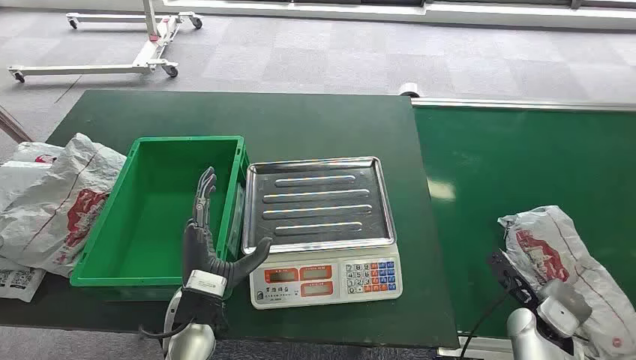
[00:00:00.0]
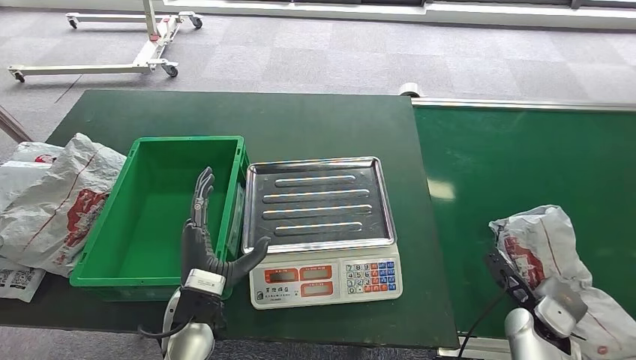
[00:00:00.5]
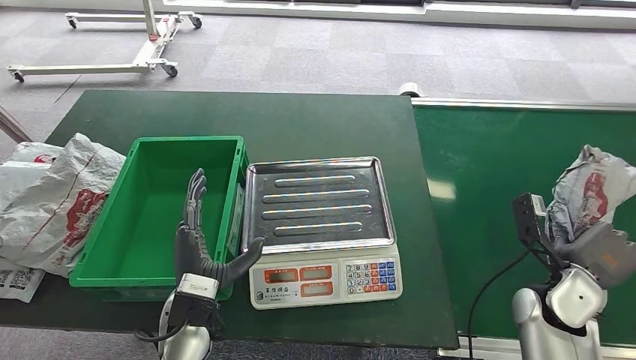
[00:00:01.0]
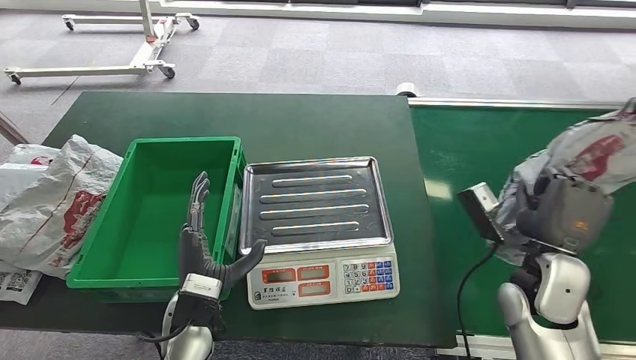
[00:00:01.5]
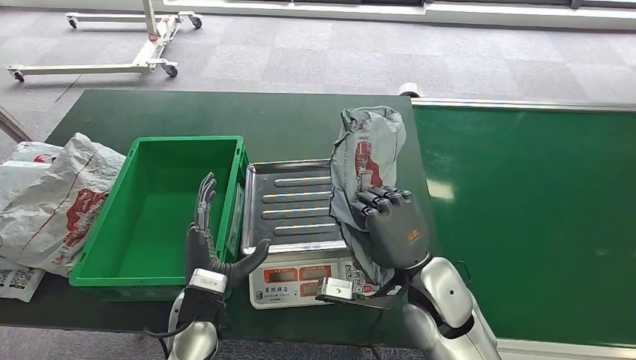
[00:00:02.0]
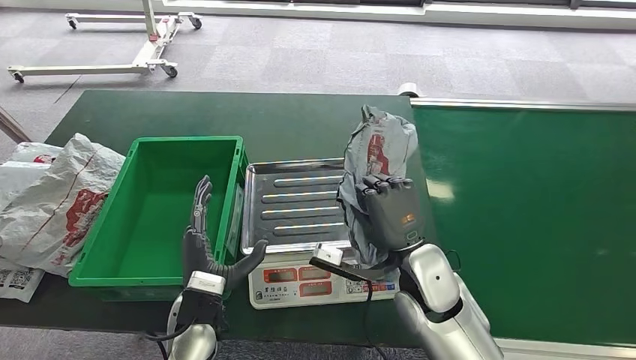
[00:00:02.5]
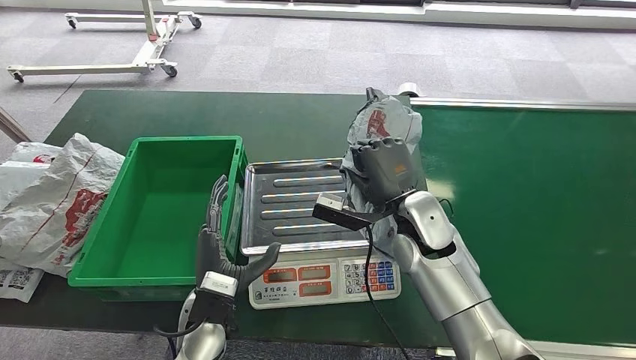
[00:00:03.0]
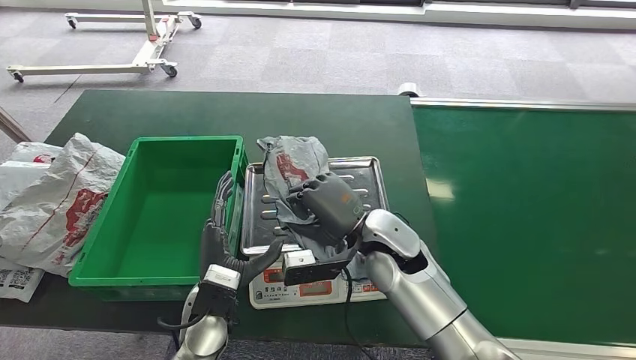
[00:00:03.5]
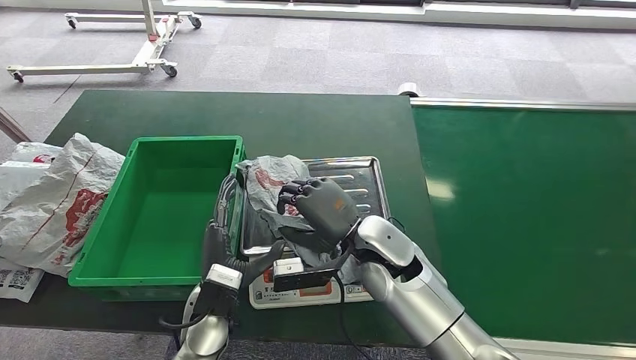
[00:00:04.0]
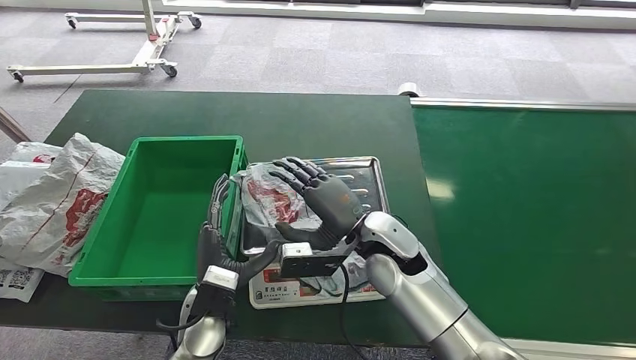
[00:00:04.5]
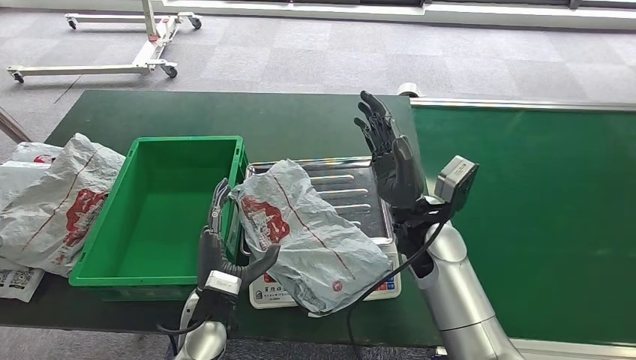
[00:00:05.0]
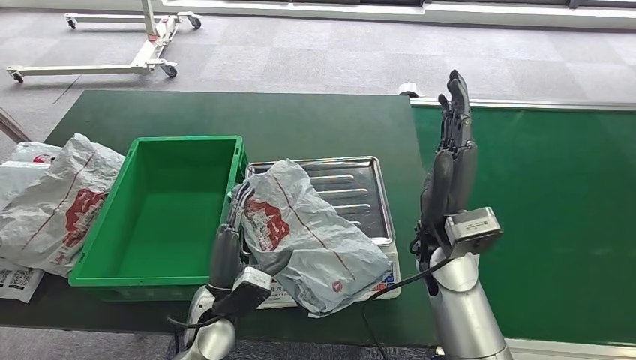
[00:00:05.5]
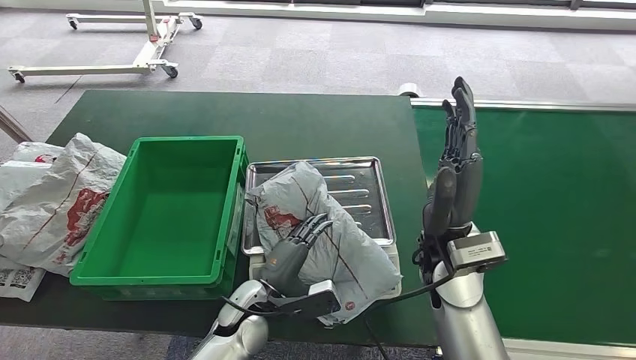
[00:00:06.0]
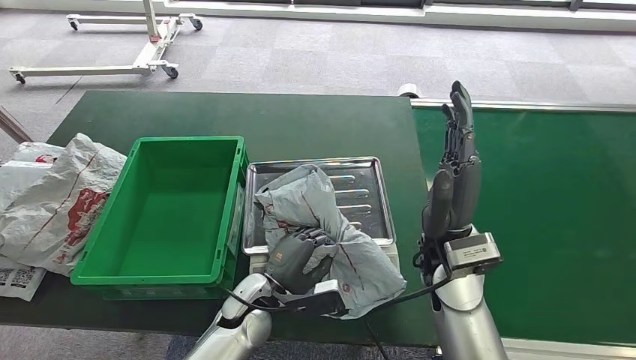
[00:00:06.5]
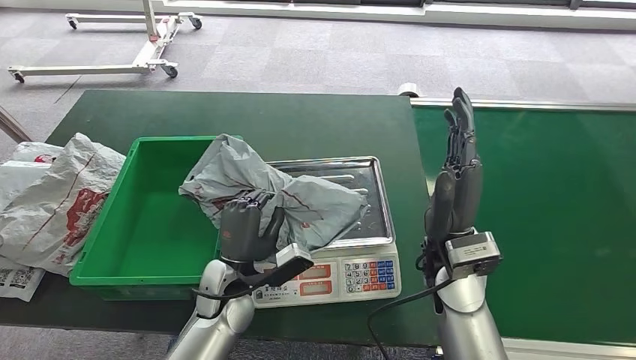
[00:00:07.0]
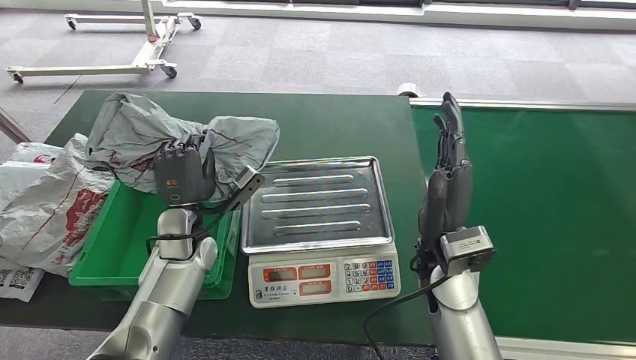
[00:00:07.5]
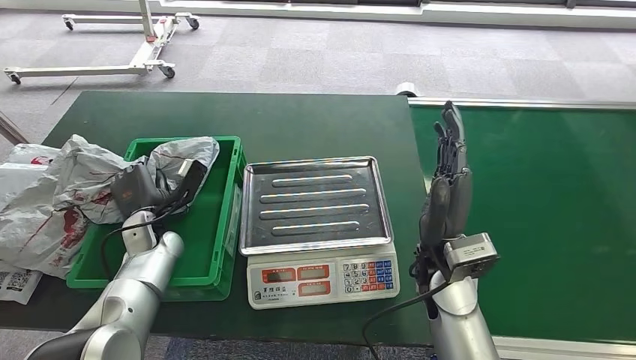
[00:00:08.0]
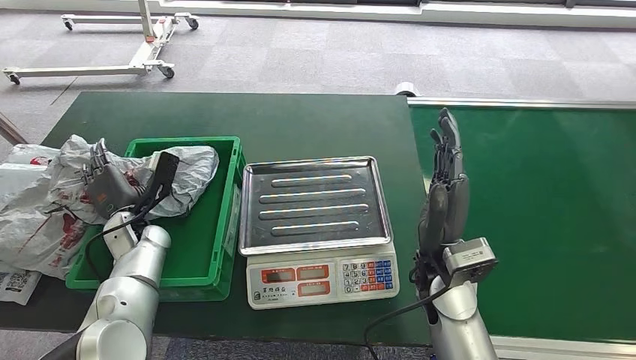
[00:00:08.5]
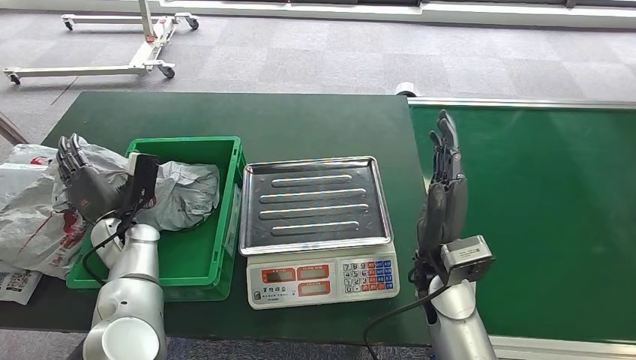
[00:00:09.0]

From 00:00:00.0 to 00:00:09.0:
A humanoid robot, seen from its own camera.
Step, from 00:00:00.0 to 00:00:01.0: Pick up the package from the conveyor belt.
Step, from 00:00:02.5 to 00:00:04.0: Place the package onto the inbound machine.
Step, from 00:00:06.0 to 00:00:06.5: Pick up the package from the inbound machine.
Step, from 00:00:07.0 to 00:00:09.0: Place the package into the parcel locker.
From 00:00:02.0 to 00:00:04.5: The right hand goes some 10 cm forward and to the left.
From 00:00:04.5 to 00:00:07.0: The right hand moves to the right, some 10 cm.
